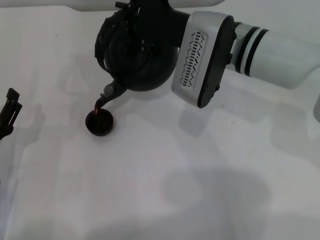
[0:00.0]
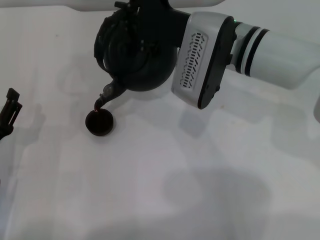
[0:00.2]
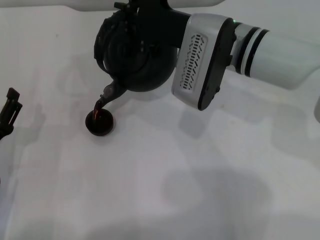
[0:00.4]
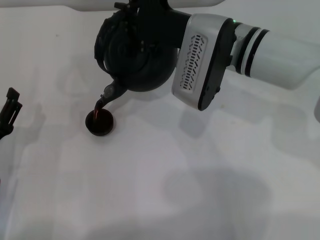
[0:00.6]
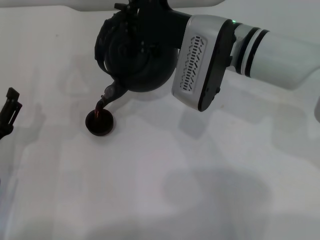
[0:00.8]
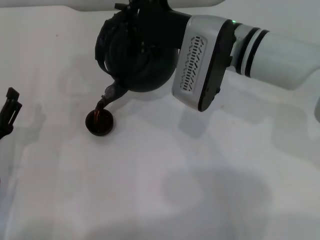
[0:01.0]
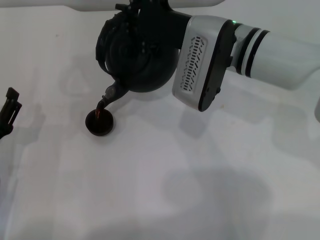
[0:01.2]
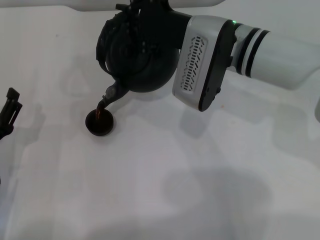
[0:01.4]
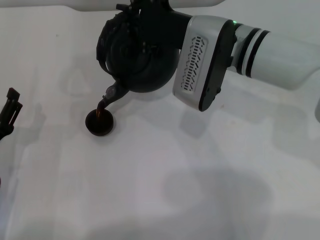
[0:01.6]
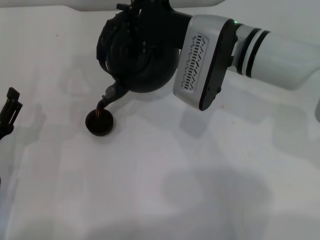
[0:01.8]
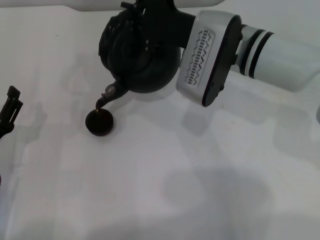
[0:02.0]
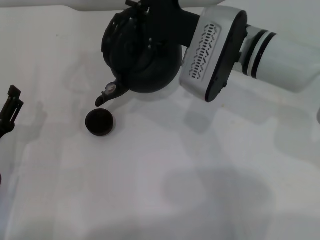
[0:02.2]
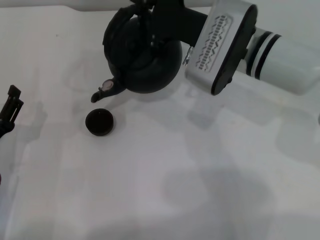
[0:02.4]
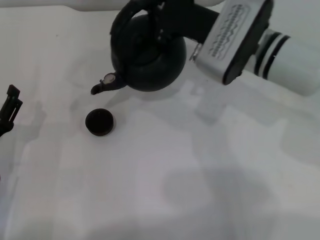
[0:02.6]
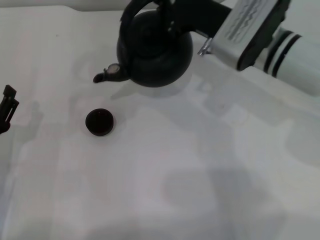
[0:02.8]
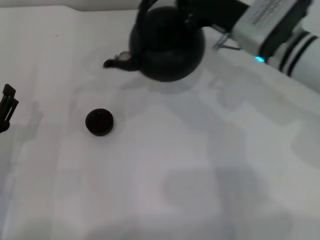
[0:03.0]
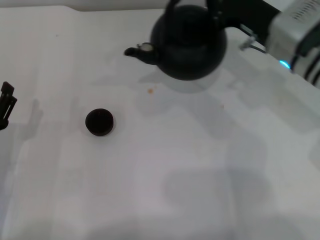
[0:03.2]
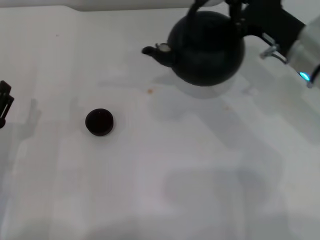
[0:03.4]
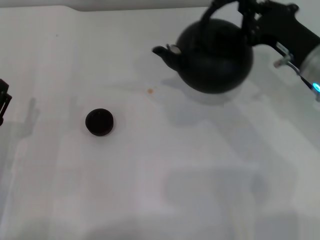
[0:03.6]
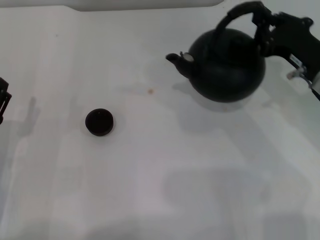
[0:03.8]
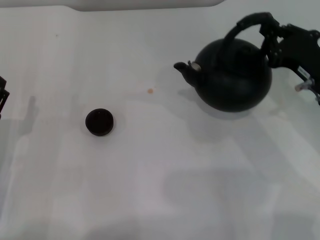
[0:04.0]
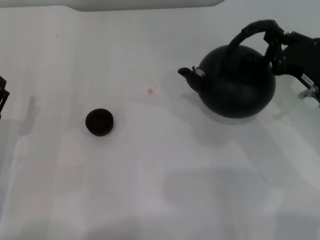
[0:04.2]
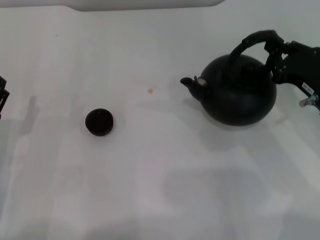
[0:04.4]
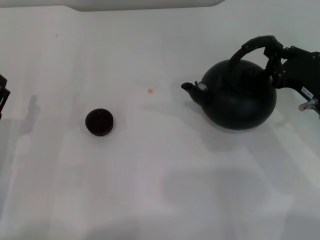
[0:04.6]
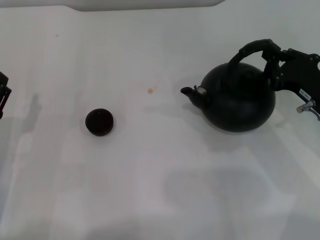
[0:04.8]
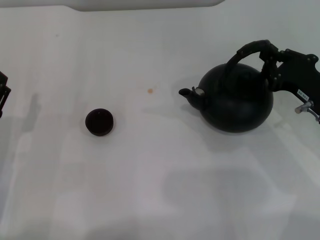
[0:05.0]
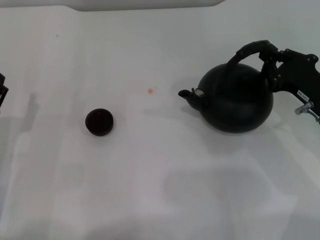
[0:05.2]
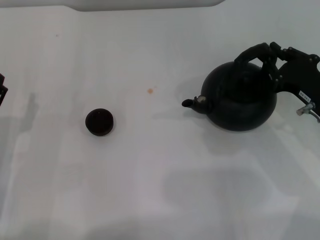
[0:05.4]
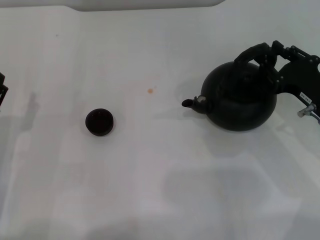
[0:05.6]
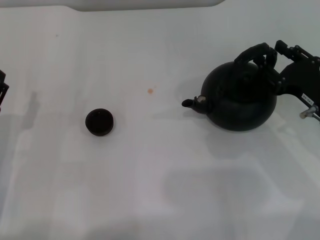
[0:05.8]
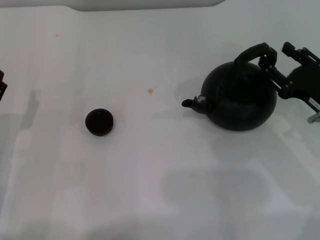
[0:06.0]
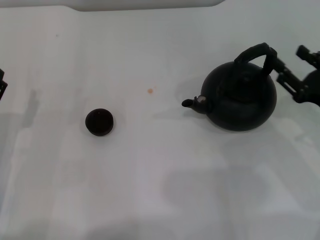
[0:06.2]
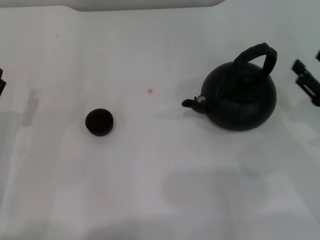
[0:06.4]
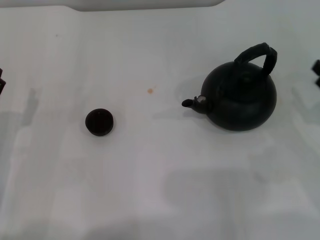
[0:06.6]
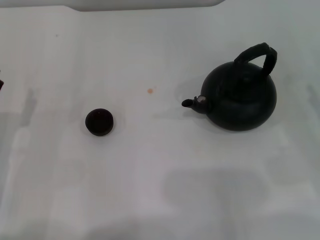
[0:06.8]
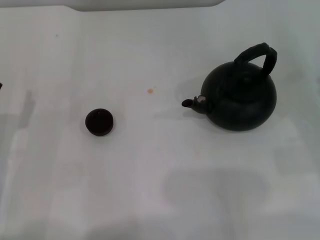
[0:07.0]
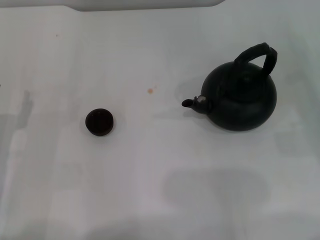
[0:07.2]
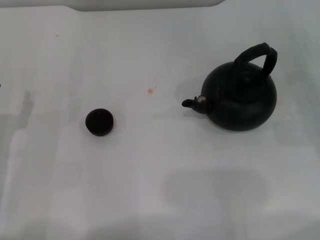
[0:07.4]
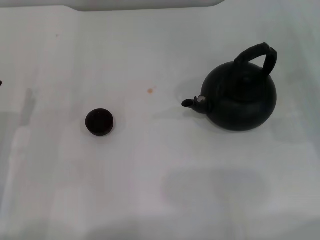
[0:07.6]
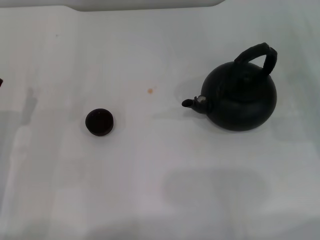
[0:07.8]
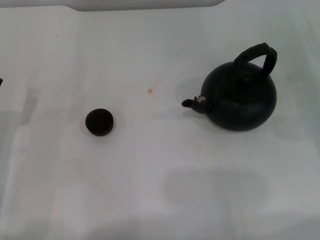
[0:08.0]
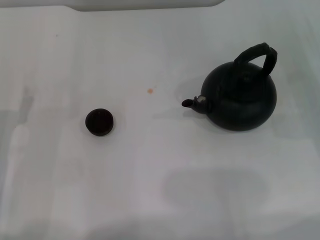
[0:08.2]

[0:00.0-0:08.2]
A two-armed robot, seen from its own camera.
Task of the whole recording: Grasp the handle of the teapot with one hand and pour tea into the teacup.
Step, 0:00.0 to 0:02.6: Pour tea into the teacup with the right gripper.
Step, 0:02.8 to 0:06.4: Put down the teapot with the right gripper.
0:00.0 to 0:01.6: Both grippers stay put.
0:01.6 to 0:03.2: The right gripper moves to the right, about 10 cm.
0:03.2 to 0:05.0: The right gripper heads backward, to the right and downward, covering roughly 15 cm.
0:05.0 to 0:06.6: The right gripper travels to the right and backward by approximately 10 cm, and opens.
